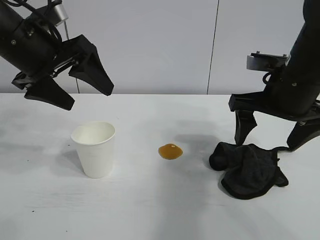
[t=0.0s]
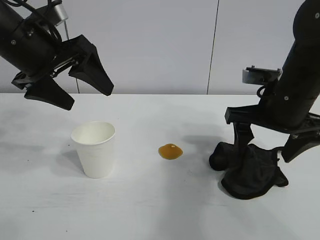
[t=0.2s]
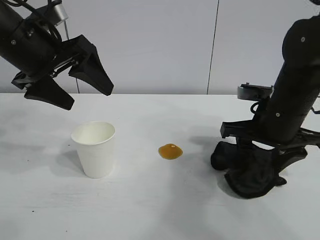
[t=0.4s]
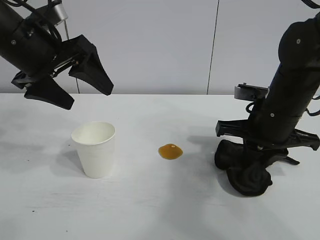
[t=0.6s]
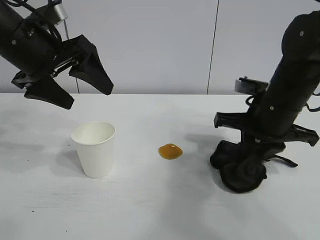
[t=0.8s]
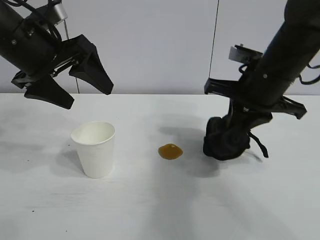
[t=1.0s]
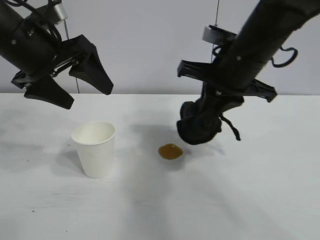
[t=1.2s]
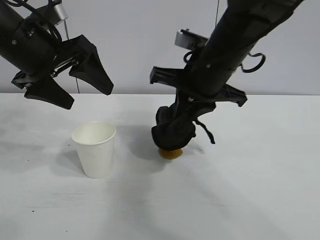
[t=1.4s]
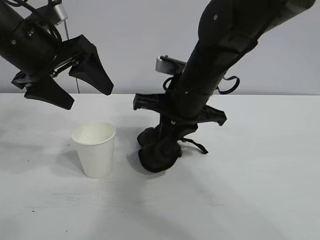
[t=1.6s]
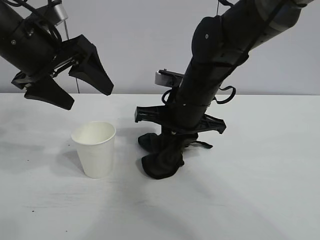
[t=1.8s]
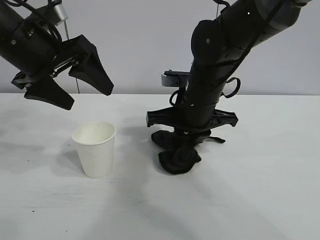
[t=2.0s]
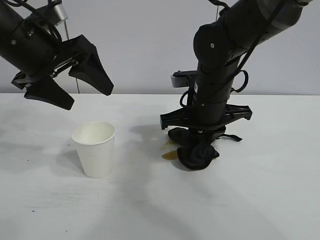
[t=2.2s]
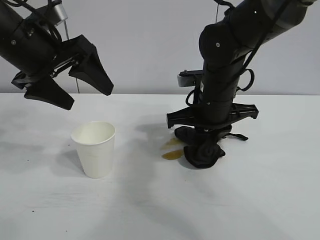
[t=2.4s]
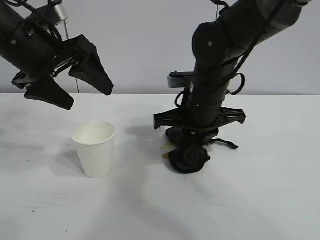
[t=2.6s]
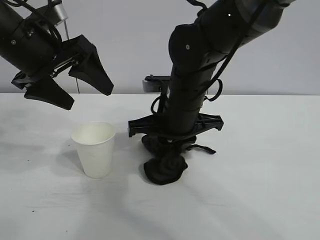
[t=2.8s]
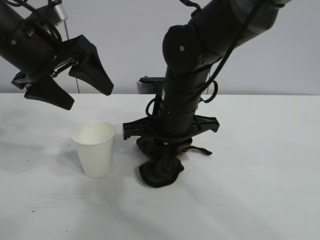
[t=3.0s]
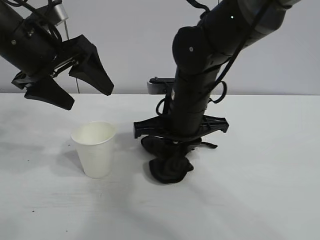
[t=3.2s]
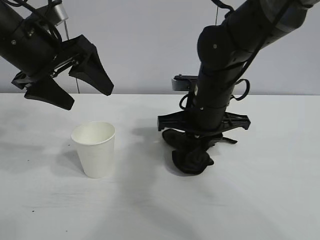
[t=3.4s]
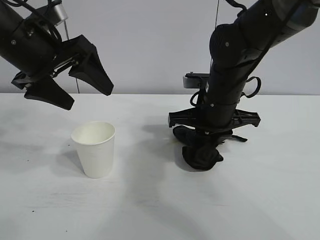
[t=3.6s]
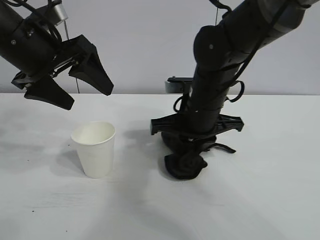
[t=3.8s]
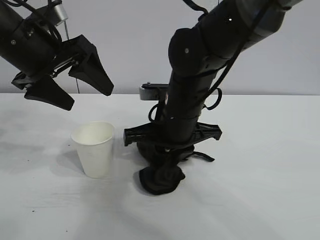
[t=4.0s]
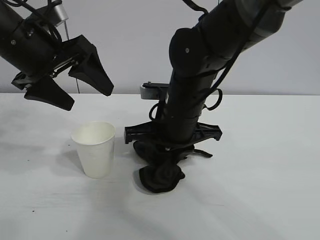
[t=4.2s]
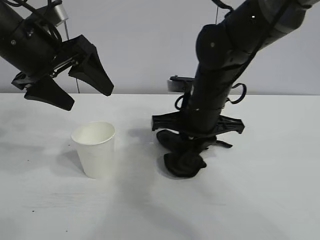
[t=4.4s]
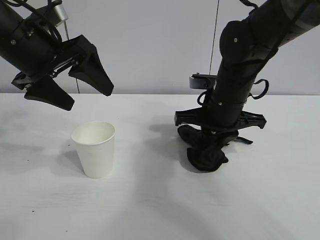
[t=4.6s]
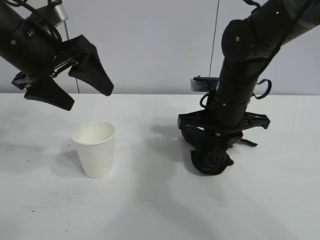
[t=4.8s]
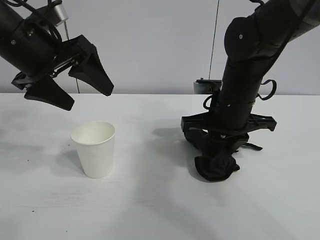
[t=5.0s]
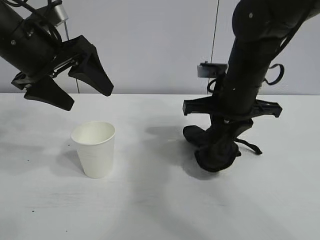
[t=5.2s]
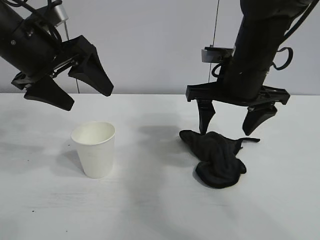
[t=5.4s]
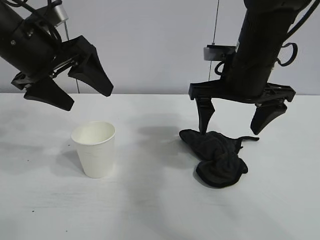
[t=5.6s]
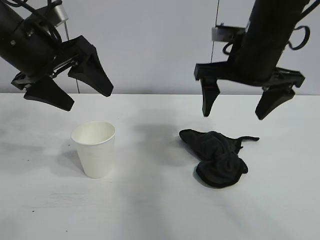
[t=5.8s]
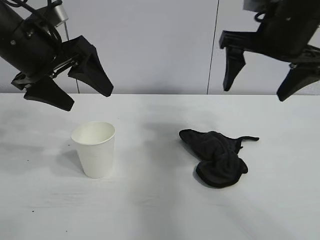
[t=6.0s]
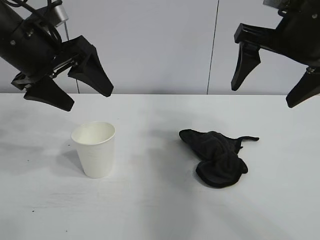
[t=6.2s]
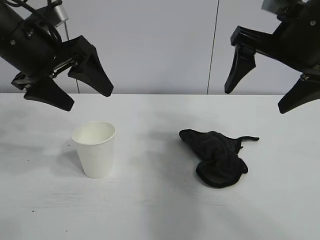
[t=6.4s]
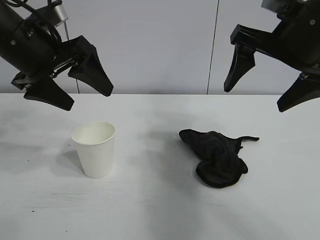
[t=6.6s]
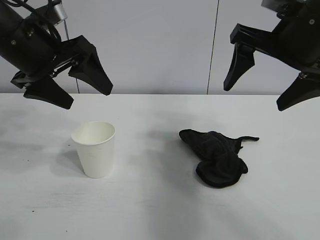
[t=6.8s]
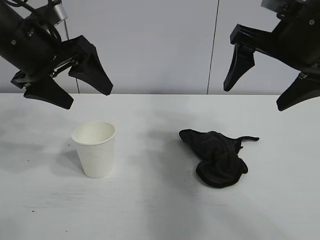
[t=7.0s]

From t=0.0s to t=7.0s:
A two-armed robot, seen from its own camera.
Task of the whole recording: the left gripper pick up the fallen cup and place it upright, the right gripper grasp the black rag and wipe the stain on the table, the right gripper put the black rag back in its original position.
Step, from t=0.6s to t=4.8s: Wipe the stains off the table with the rag with right gripper.
Step, from t=5.0s to t=5.4s: Place the rag on the table with right gripper.
